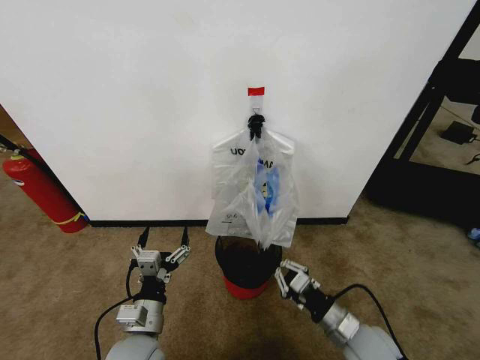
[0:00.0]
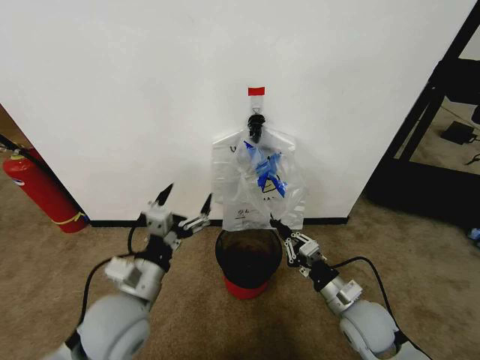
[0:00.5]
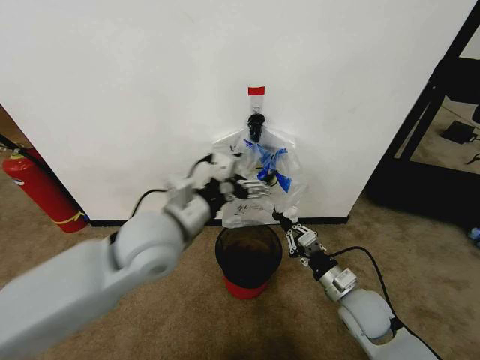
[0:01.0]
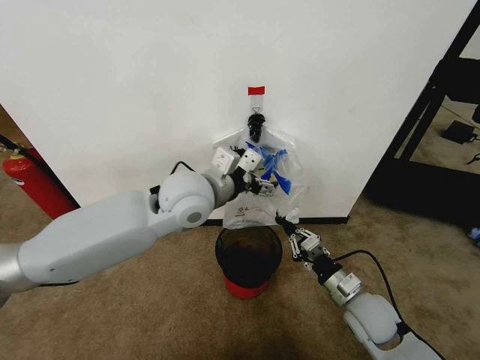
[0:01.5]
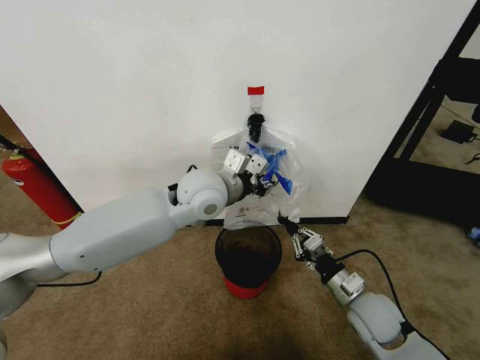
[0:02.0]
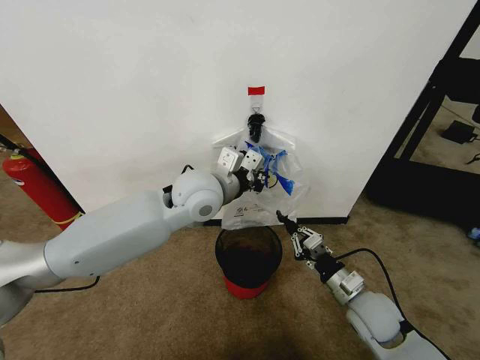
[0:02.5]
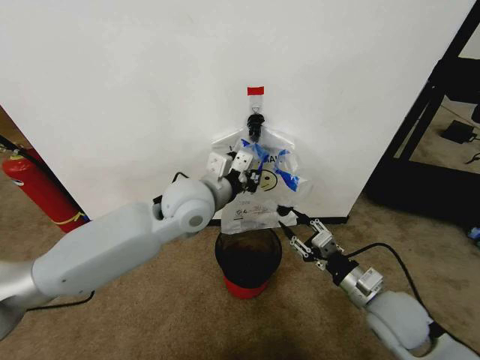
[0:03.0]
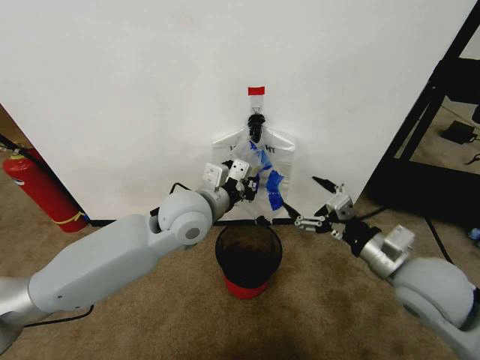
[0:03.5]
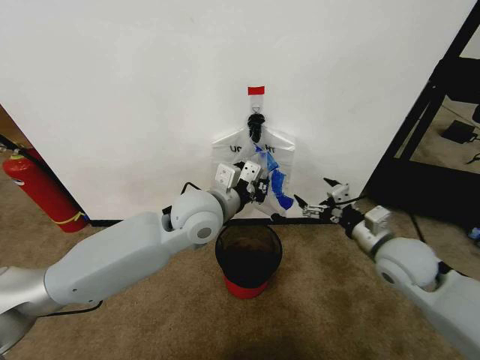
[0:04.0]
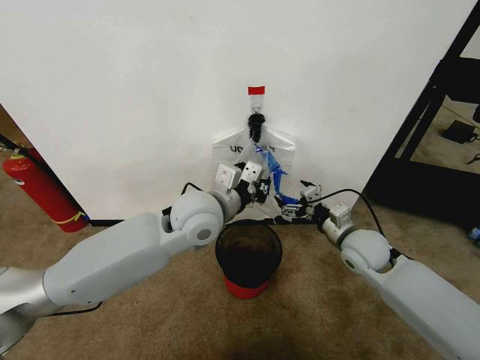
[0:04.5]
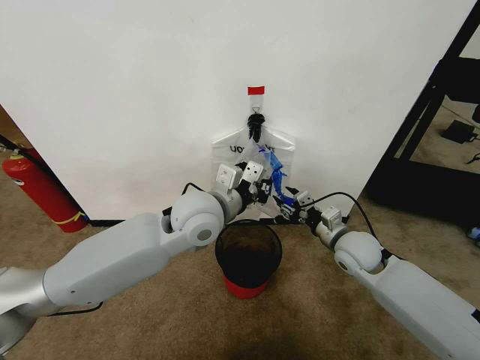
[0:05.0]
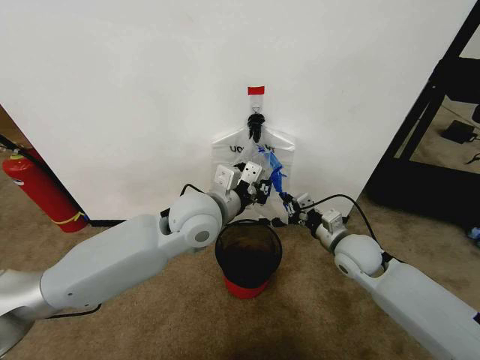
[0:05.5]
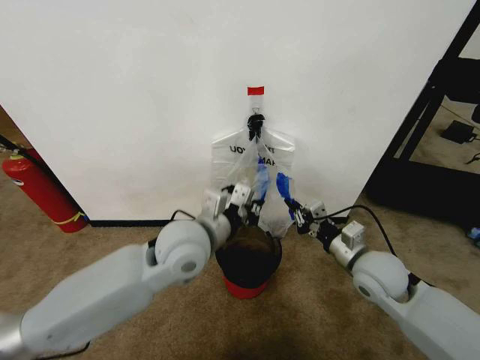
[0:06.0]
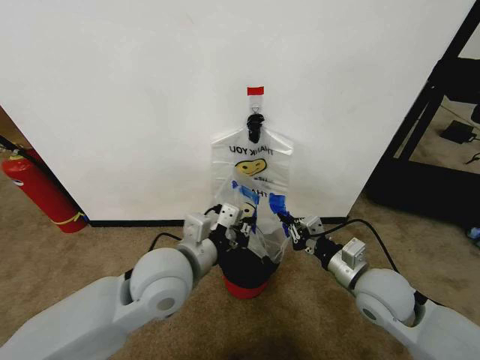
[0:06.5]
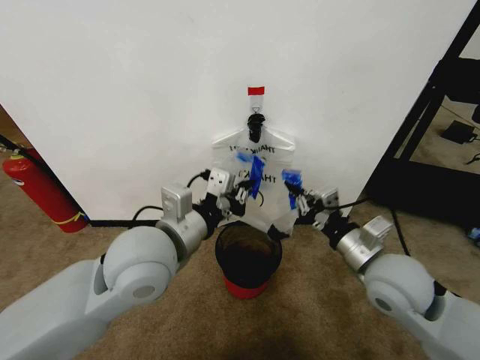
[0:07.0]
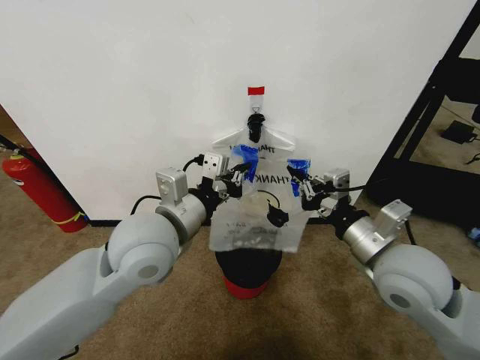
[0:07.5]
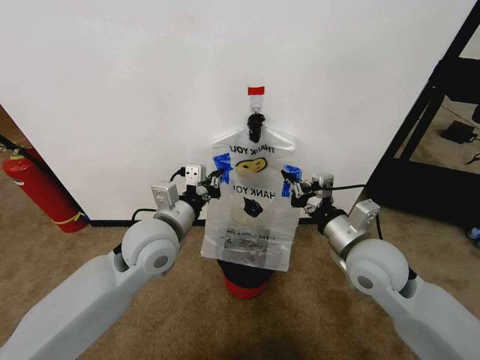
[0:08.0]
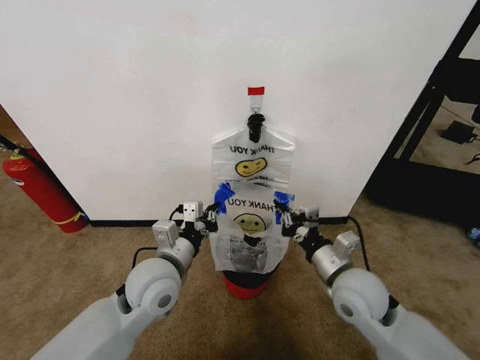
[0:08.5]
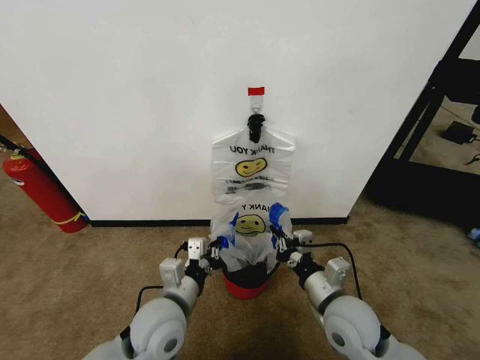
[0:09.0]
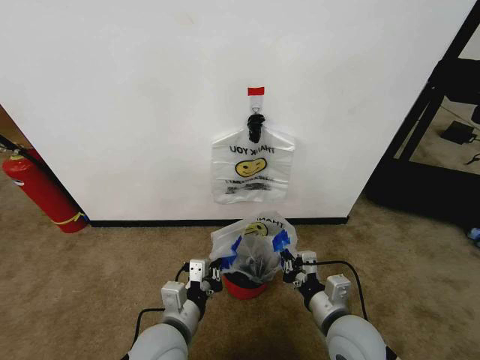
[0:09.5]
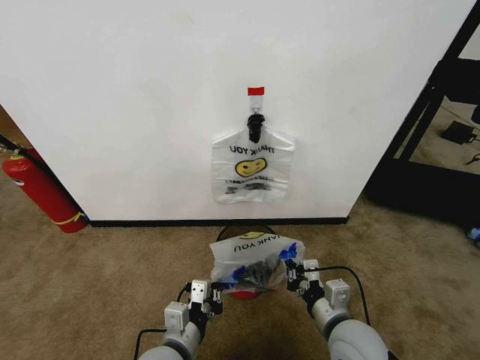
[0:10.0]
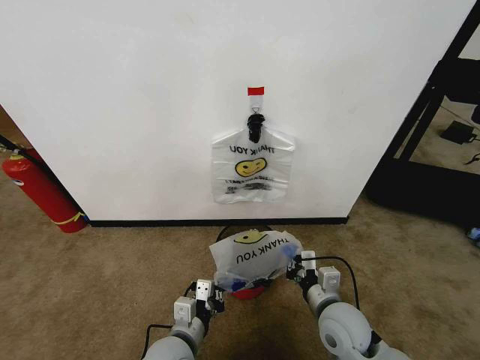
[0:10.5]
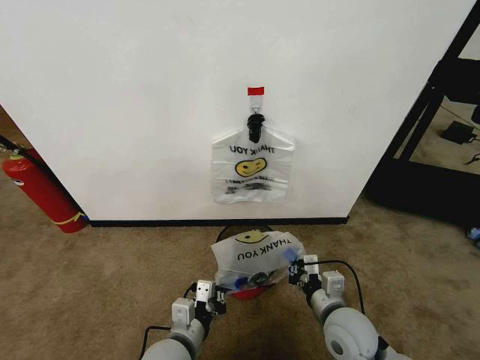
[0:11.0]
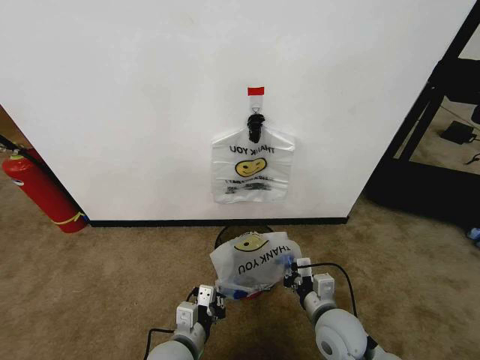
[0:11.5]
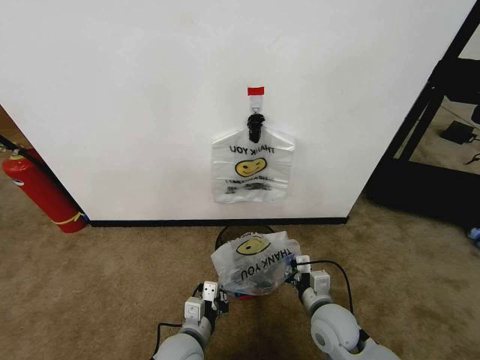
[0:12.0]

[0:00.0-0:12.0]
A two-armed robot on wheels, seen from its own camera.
Task of the whole recording: Pick up the garbage bag from the wall and place it over the trash bin.
0.0 to 2.0 s: The right gripper heads forward, covering approximately 5 cm, while the left gripper moves forward, upward and to the right, roughly 35 cm, and closes.
2.0 to 4.0 s: The right gripper shifts about 15 cm upward and forward, and opens its fingers.
4.0 to 6.0 s: The left gripper heads backward, covering some 5 cm; the right gripper closes up.
6.0 to 8.0 s: The right gripper moves upward, some 5 cm; the left gripper shifts approximately 5 cm to the left.
8.0 to 10.0 s: The left gripper shifts roughly 25 cm backward and downward; the right gripper is displaced downward and backward by some 15 cm.
10.0 to 12.0 s: Both grippers move downward, approximately 5 cm.

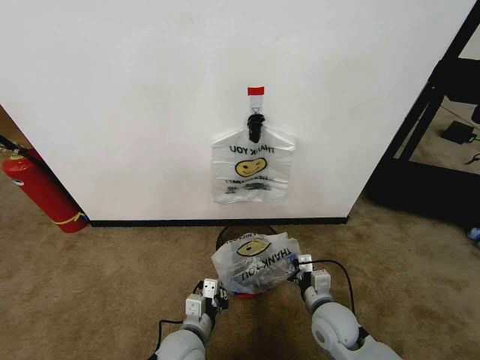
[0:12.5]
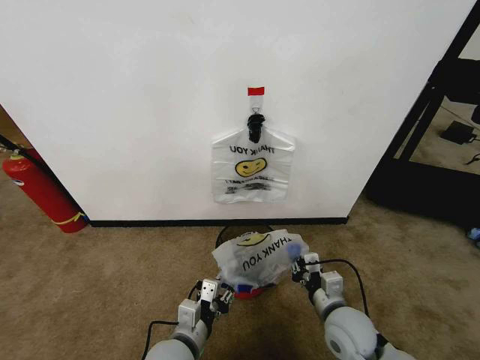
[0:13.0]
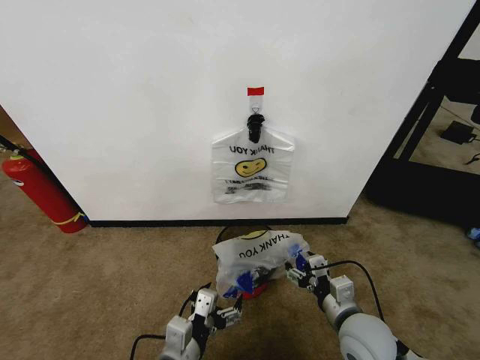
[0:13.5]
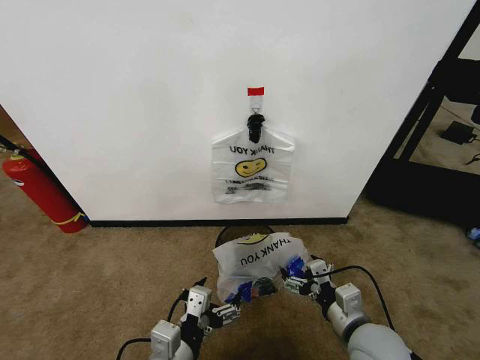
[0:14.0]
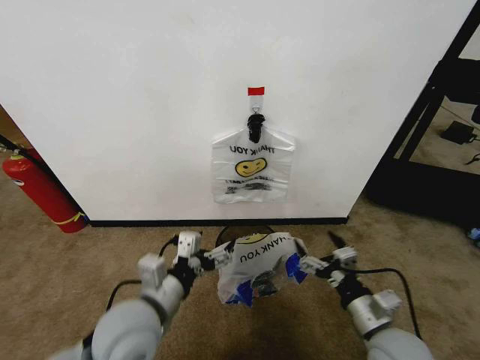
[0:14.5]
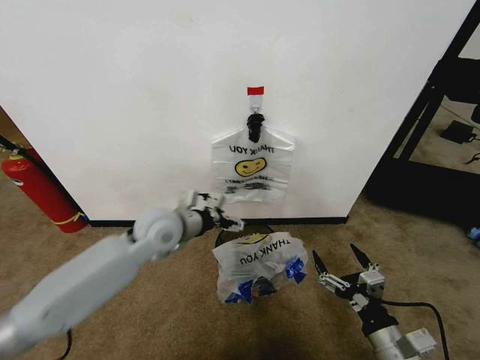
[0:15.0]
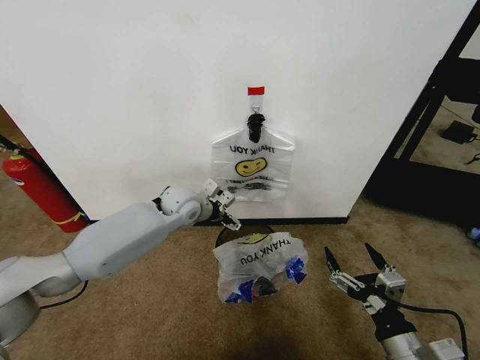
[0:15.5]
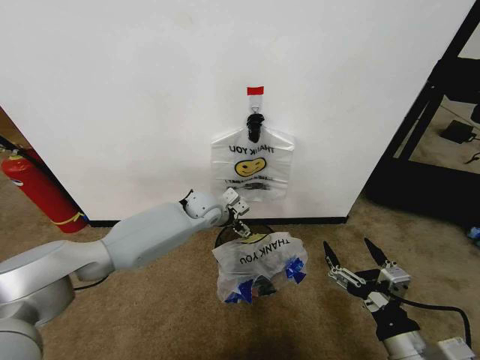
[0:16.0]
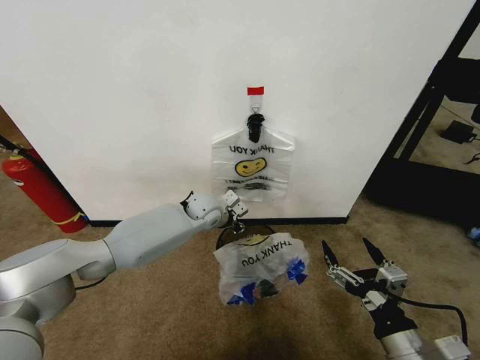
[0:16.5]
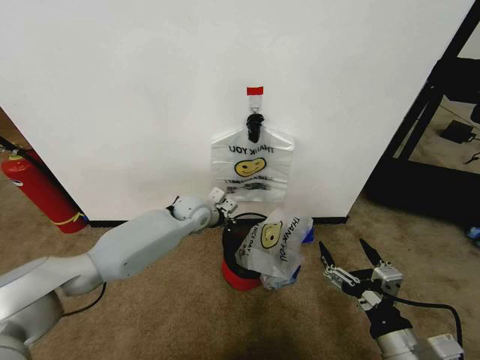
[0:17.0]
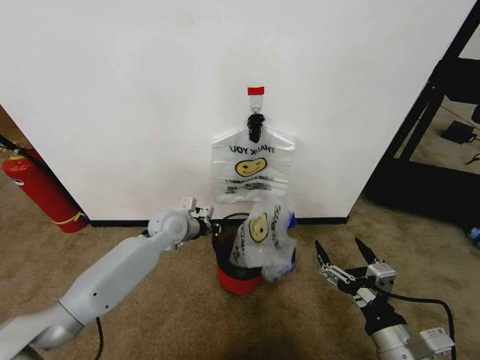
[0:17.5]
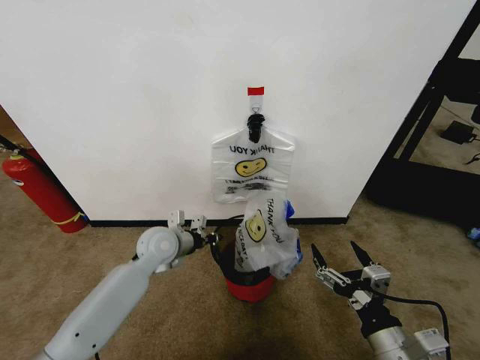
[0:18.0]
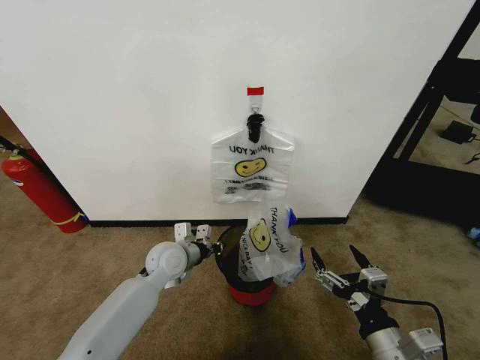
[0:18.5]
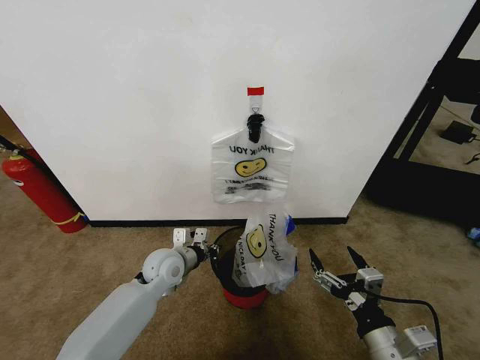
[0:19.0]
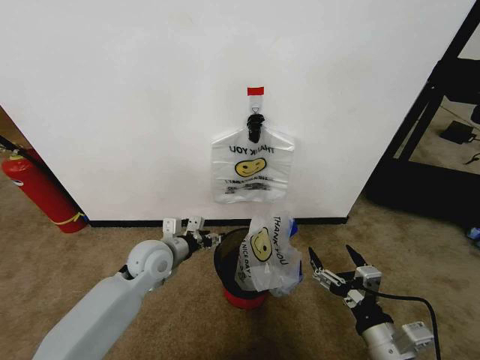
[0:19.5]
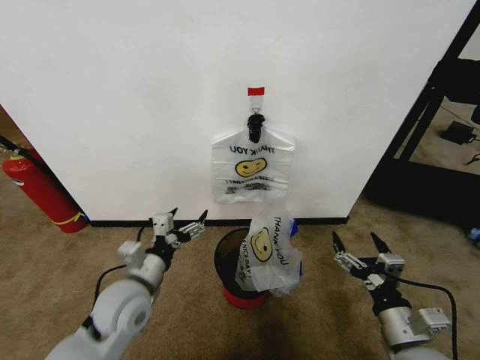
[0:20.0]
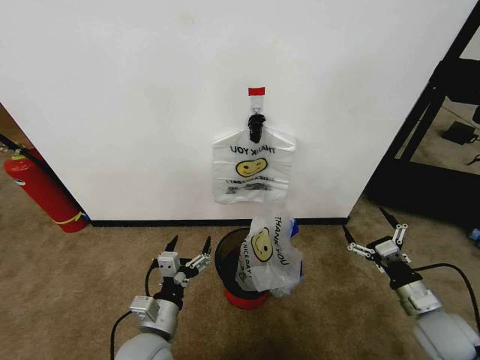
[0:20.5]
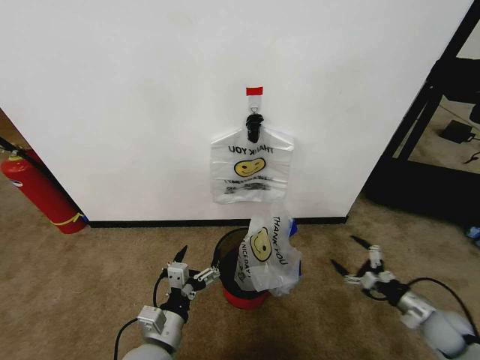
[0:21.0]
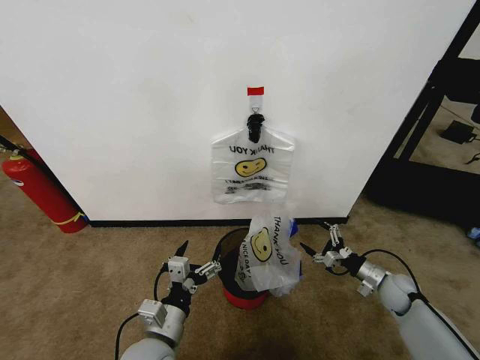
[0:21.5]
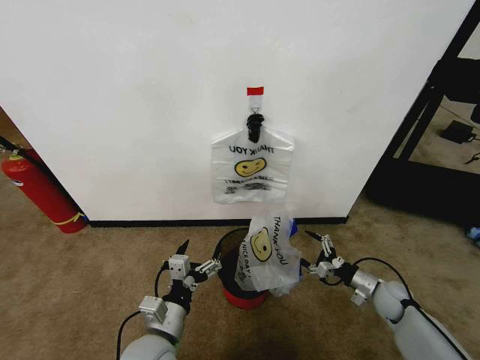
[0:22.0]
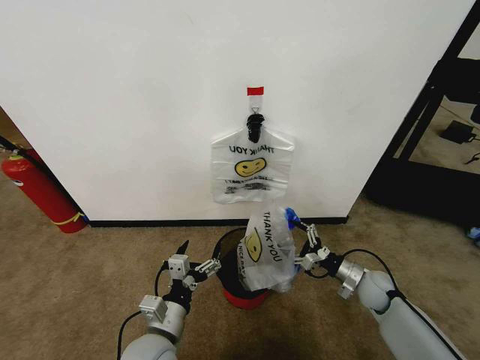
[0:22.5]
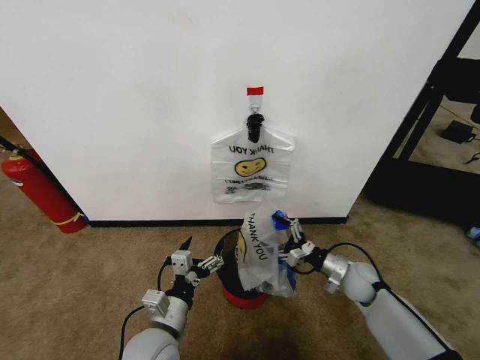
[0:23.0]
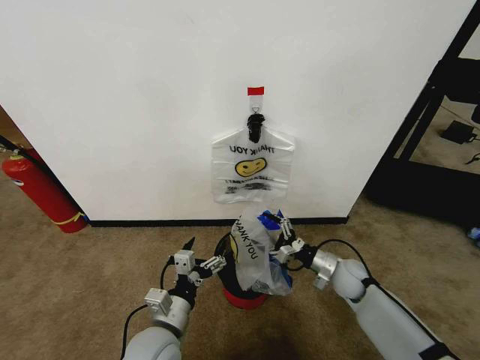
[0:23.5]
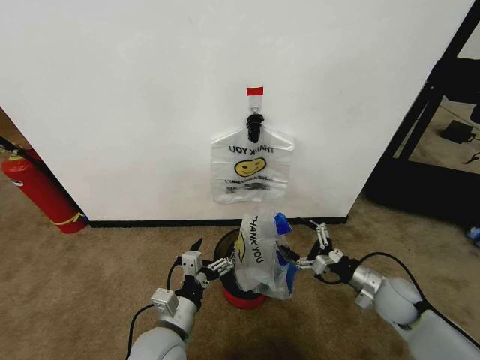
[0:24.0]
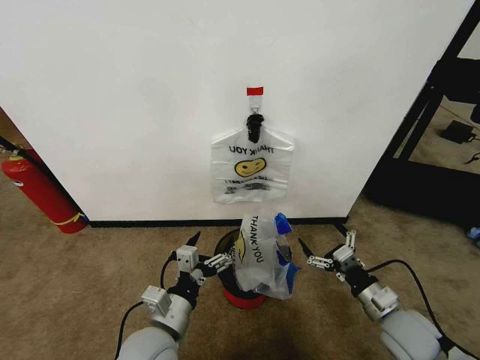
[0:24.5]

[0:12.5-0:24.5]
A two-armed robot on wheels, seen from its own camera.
Task of the whole recording: Pick up the garbage bag from the wall and place it over the trash bin.
12.5 to 14.5 s: The right gripper moves upward, backward and to the right, roughly 15 cm, and opens up, while the left gripper travels upward by roughly 20 cm, and opens.
14.5 to 16.5 s: The right gripper goes approximately 5 cm backward; the left gripper heads forward, covering roughly 30 cm, and closes up.
16.5 to 18.5 s: The left gripper heads backward and to the left, covering roughly 15 cm.
18.5 to 20.5 s: The right gripper travels to the right, forward and downward by approximately 20 cm. Meanwhile the left gripper is displaced backward by some 20 cm, and opens its fingers.
20.5 to 22.5 s: The right gripper shifts about 15 cm forward, downward and to the left.
22.5 to 24.5 s: The right gripper travels backward and upward by about 15 cm.

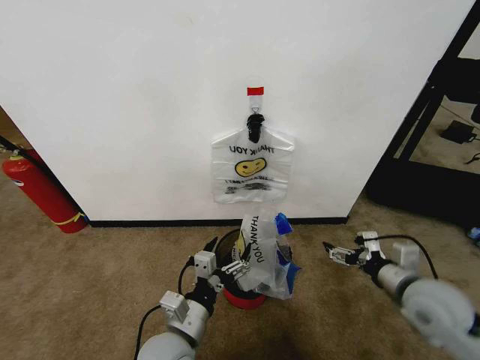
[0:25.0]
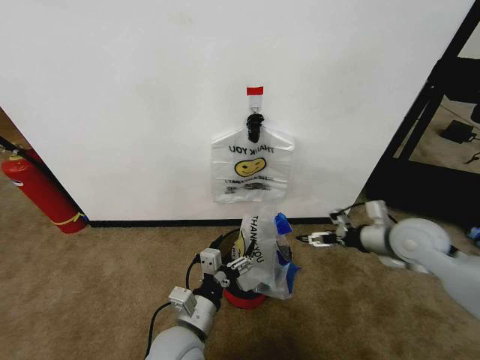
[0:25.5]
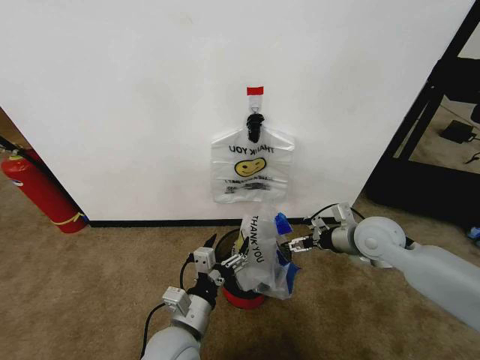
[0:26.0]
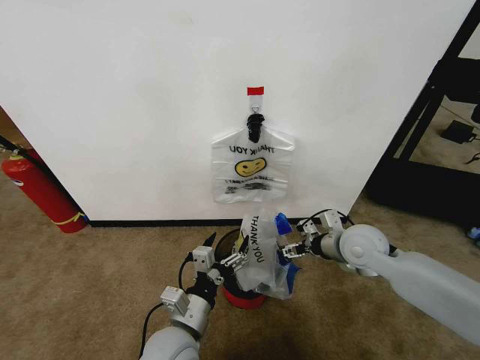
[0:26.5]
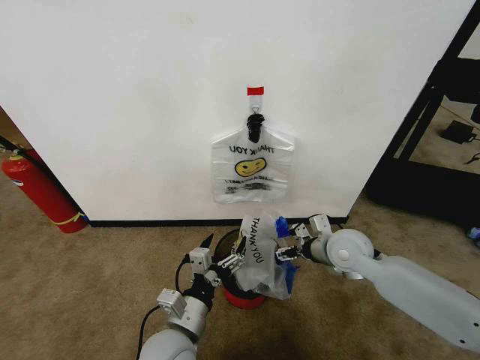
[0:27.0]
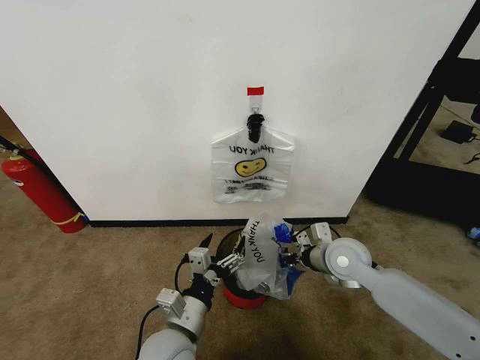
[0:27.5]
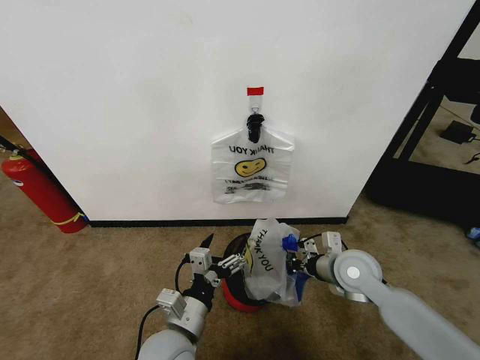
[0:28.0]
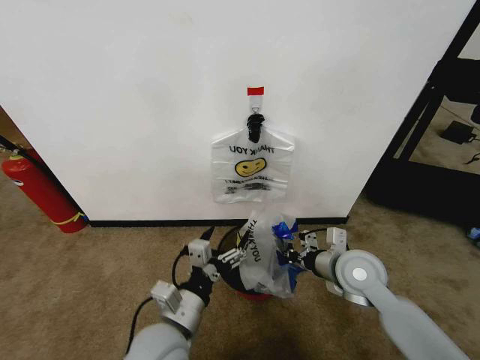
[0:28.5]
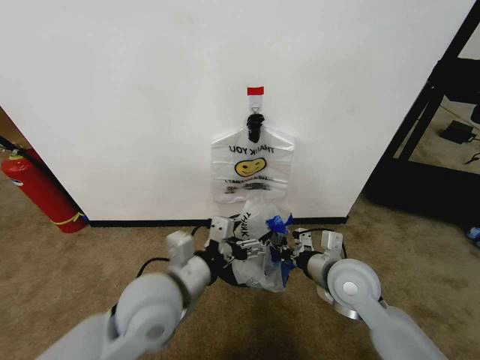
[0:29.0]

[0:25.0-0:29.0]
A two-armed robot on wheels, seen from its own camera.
Task of the whole recording: Pick up the garbage bag from the wall and place it over the trash bin.
25.0 to 27.0 s: The right gripper shifts about 15 cm forward and to the left.
27.0 to 29.0 s: The right gripper travels backward by roughly 10 cm, and closes its fingers. The left gripper moves upward, some 10 cm.
